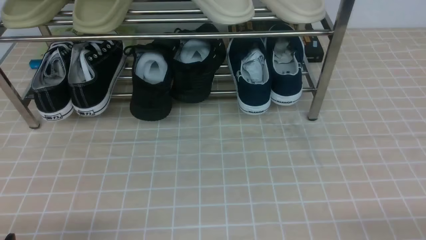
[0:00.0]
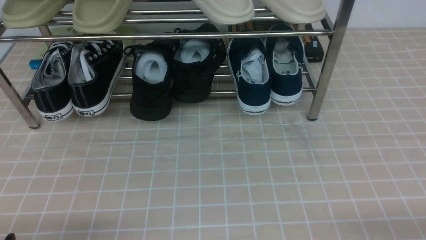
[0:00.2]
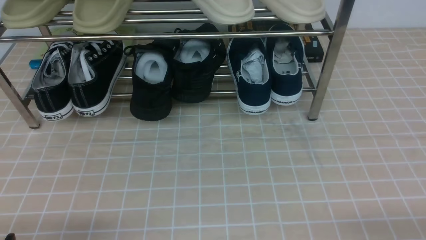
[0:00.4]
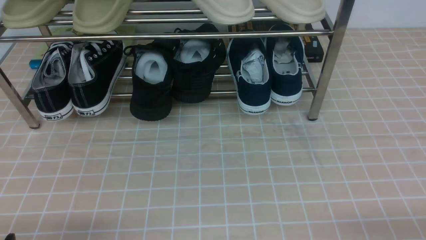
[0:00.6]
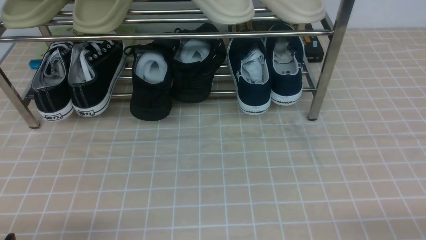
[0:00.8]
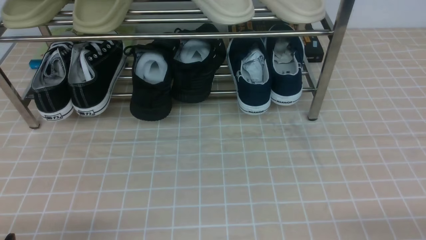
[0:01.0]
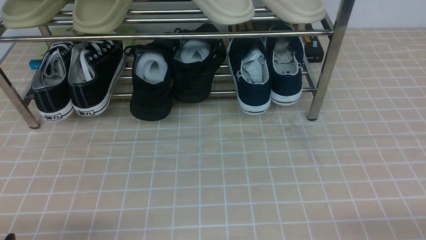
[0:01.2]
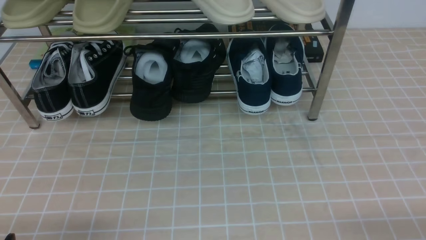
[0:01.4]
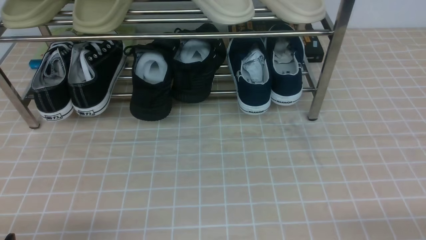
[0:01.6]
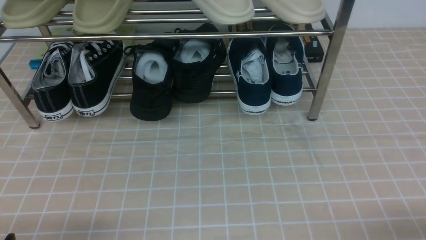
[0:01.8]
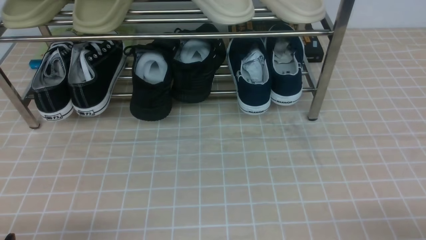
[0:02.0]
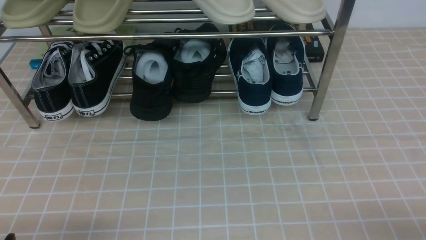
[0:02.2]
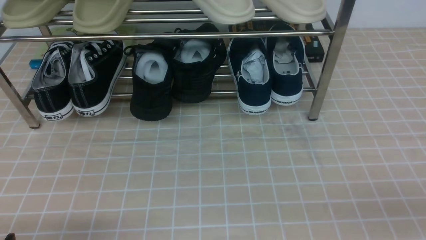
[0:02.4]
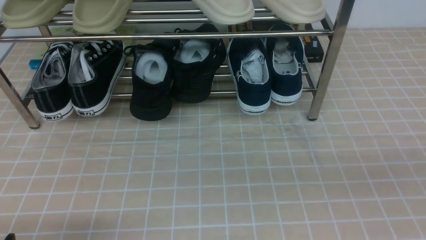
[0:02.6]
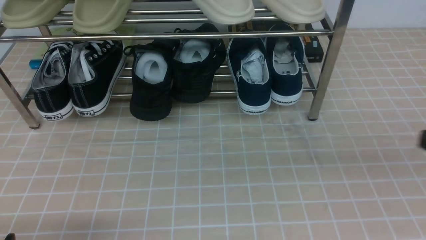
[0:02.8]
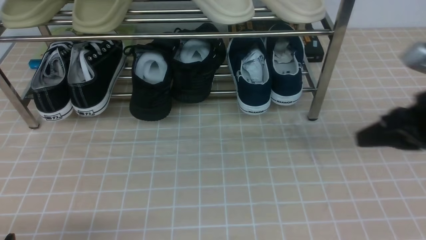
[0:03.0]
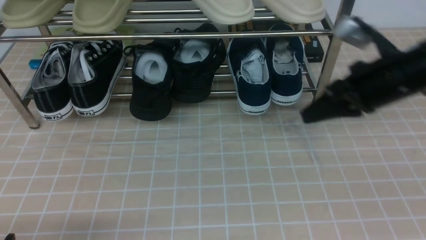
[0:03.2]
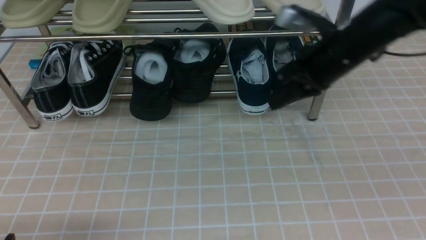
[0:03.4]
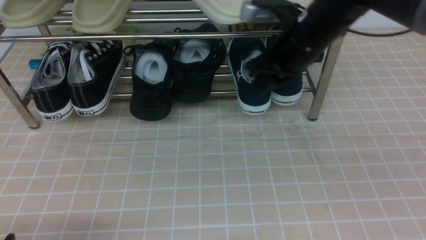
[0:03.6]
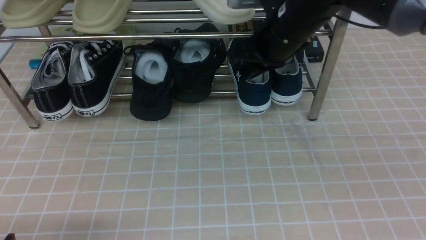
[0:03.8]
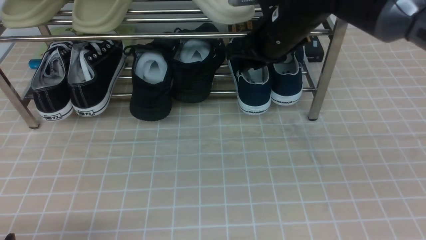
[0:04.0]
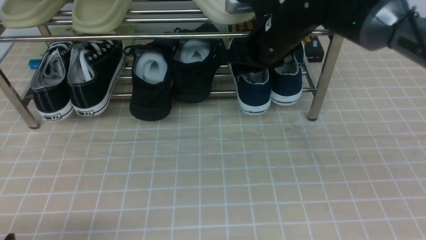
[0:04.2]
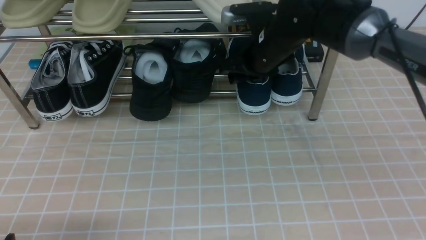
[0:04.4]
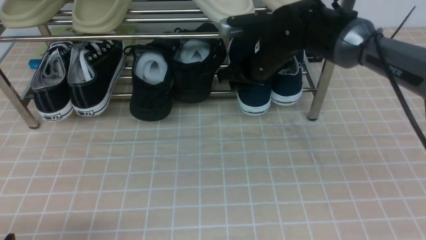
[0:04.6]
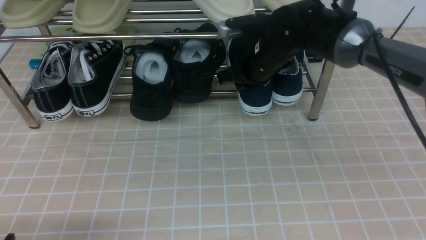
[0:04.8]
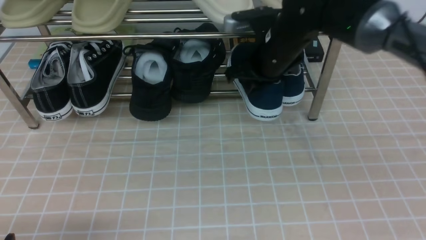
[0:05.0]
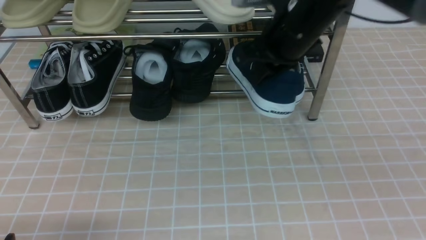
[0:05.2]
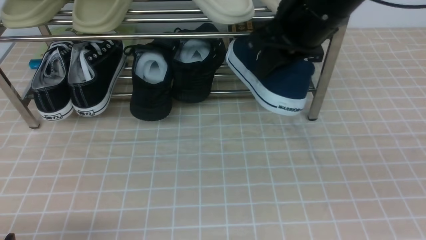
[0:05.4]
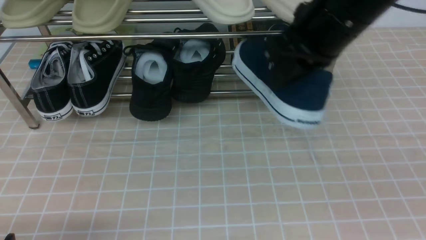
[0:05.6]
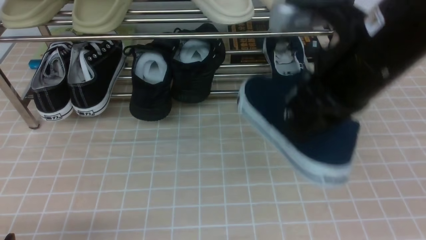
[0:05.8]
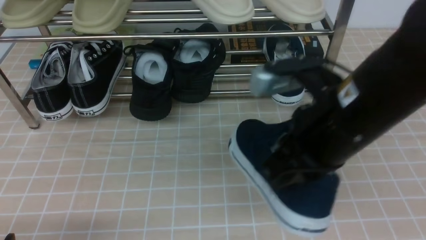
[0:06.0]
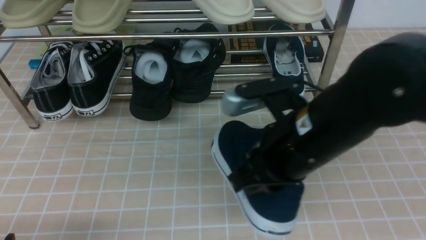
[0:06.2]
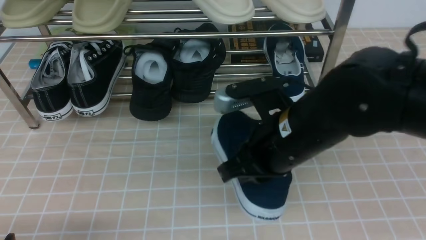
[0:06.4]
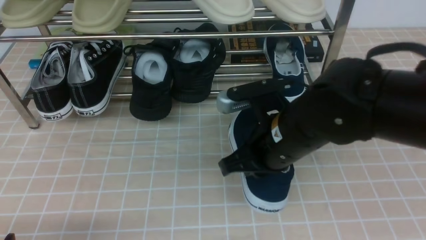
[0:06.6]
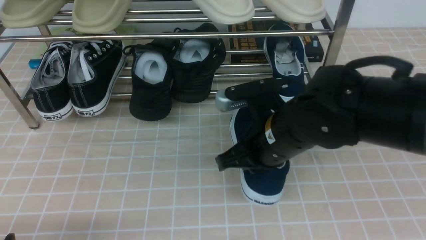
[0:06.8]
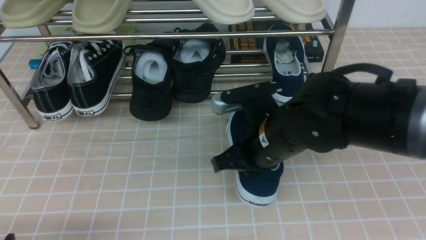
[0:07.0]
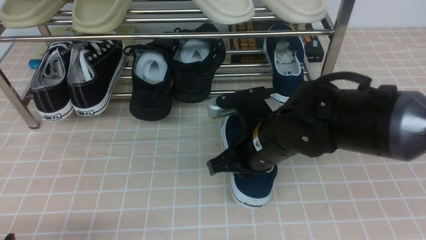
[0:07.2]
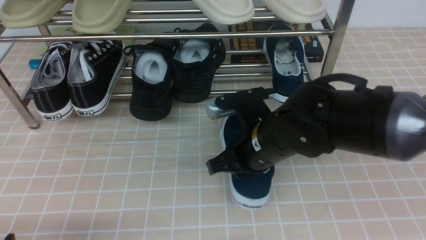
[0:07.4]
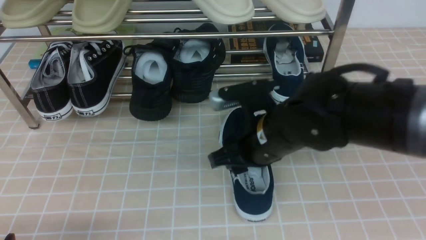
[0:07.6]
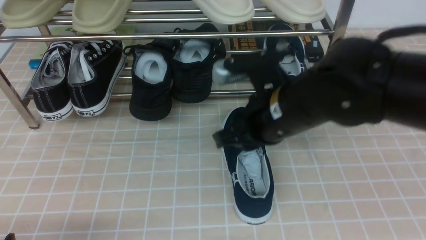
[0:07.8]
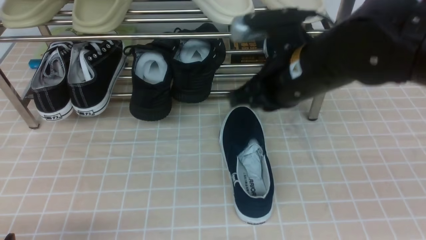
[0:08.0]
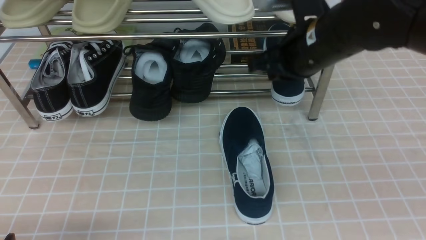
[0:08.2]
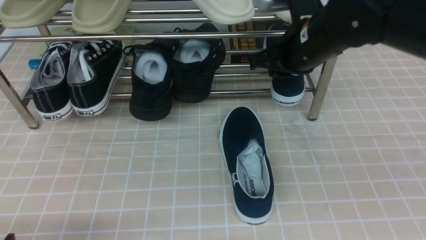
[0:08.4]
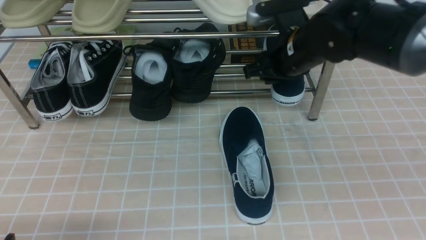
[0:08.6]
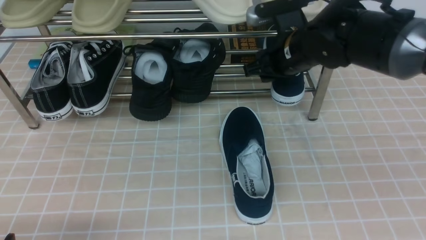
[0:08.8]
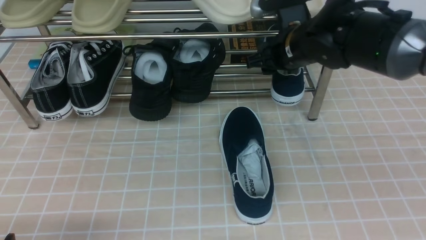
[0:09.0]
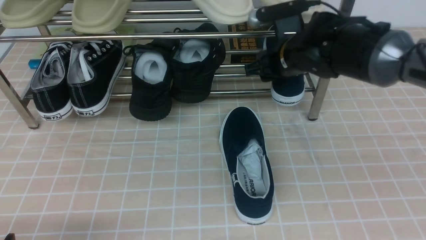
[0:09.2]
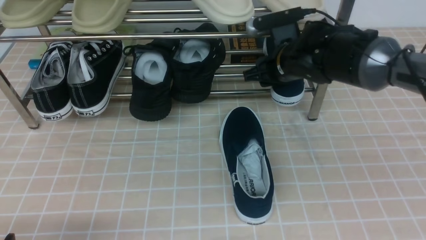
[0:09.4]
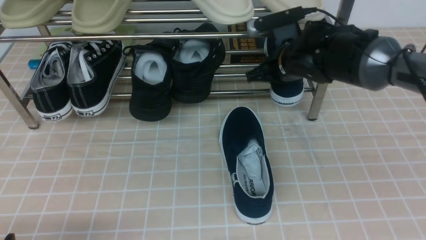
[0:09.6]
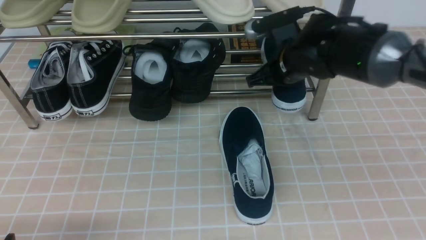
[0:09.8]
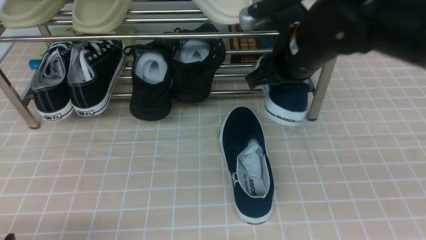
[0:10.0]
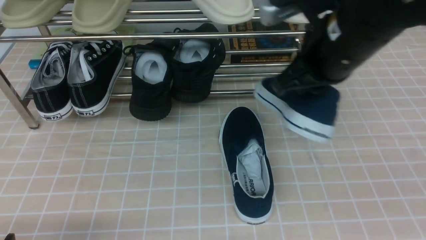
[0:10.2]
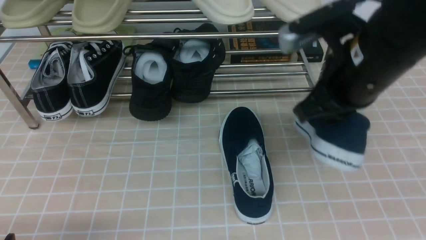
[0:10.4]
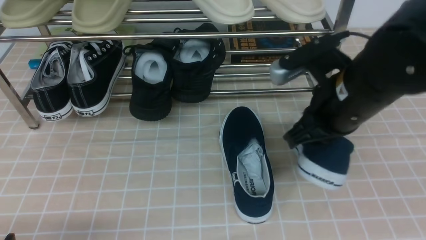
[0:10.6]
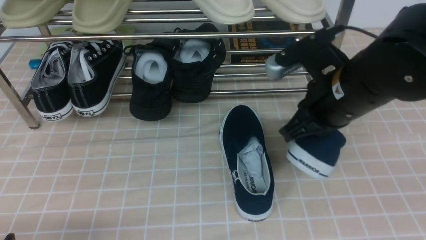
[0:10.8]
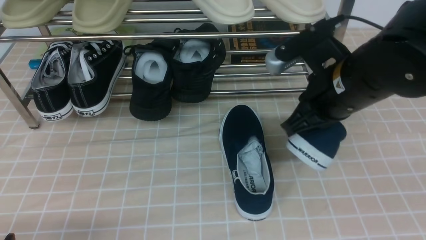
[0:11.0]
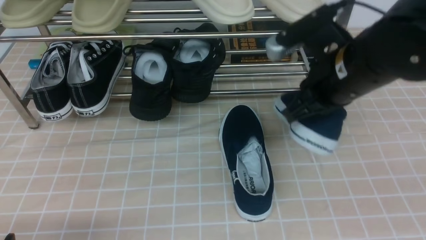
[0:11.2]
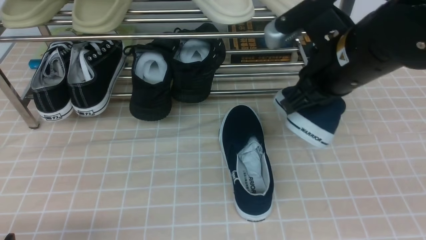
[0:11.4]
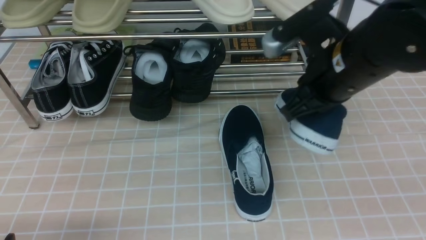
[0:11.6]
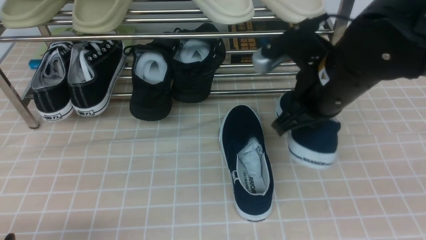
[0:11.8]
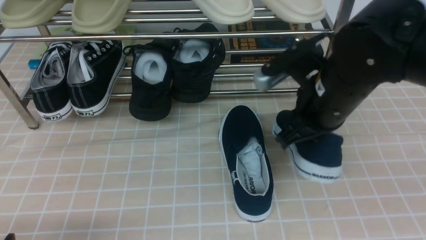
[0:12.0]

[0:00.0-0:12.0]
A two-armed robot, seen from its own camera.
Step, 0:00.0 to 0:04.6: use the right arm to clamp a shoe on the right side of the shoe rack.
Step, 0:04.8 to 0:07.6: use the right arm to take out the clamped shoe from the shoe rack and put it down.
Step, 0:08.0 to 0:09.4: use the right arm to clamp a shoe on the right side of the shoe rack.
0:01.6 to 0:03.0: The right gripper moves forward and upward, some 25 cm, and closes.
0:03.0 to 0:04.4: The right gripper is displaced forward and to the left by about 25 cm, and opens.
0:04.4 to 0:06.0: The right gripper moves backward, some 20 cm, and closes its fingers.
0:06.0 to 0:07.6: The right gripper moves downward, roughly 10 cm, and opens up.
0:07.6 to 0:09.0: The right gripper is displaced forward by roughly 15 cm, and closes, then reopens.
0:09.0 to 0:10.4: The right gripper shifts approximately 15 cm backward and upward, and closes.
0:10.4 to 0:12.0: The grippers make only small movements.

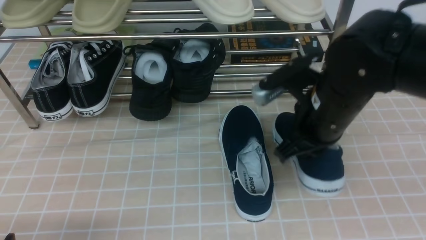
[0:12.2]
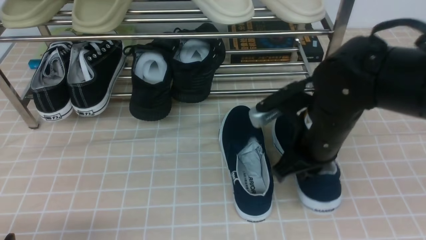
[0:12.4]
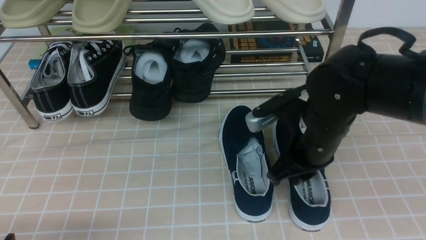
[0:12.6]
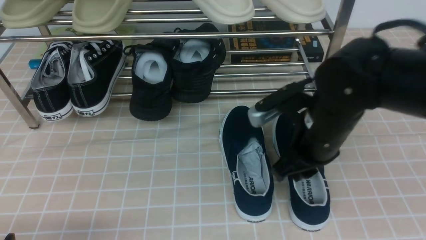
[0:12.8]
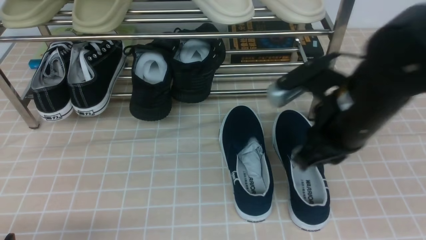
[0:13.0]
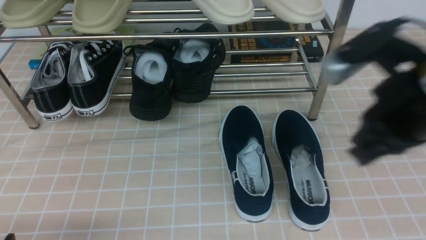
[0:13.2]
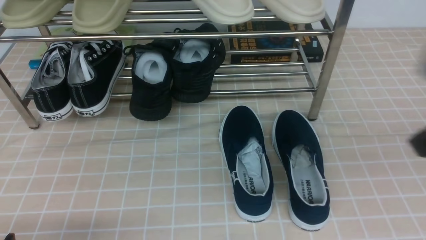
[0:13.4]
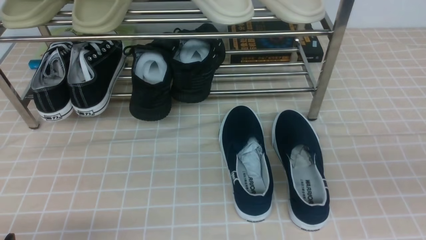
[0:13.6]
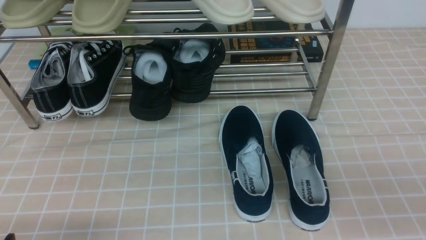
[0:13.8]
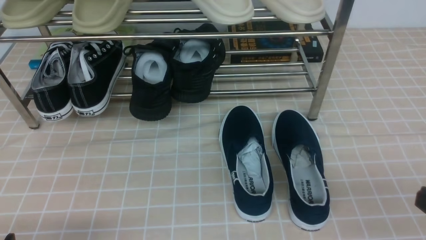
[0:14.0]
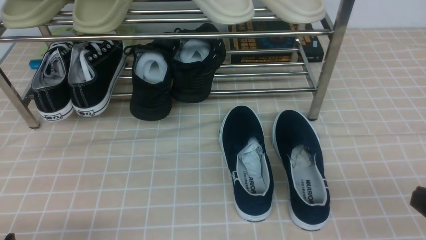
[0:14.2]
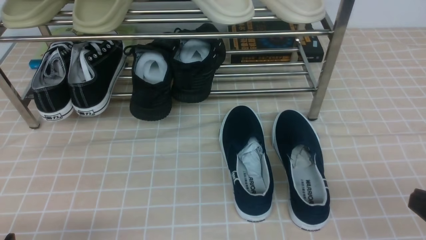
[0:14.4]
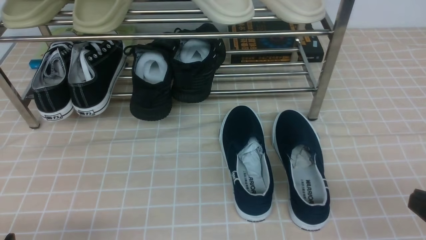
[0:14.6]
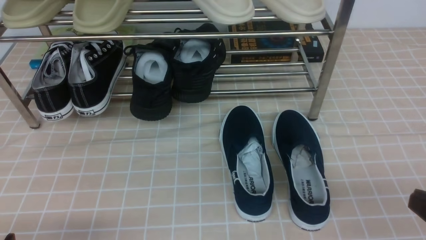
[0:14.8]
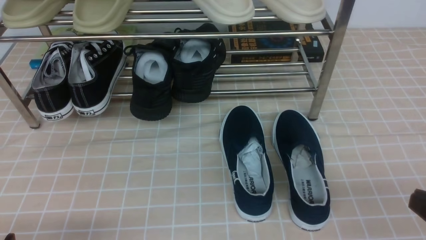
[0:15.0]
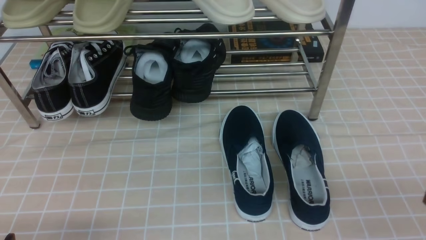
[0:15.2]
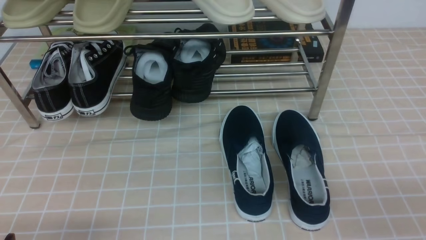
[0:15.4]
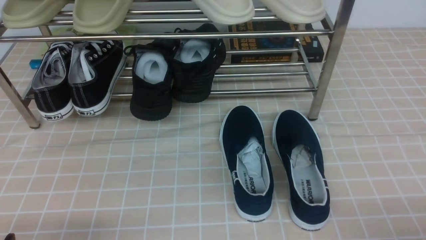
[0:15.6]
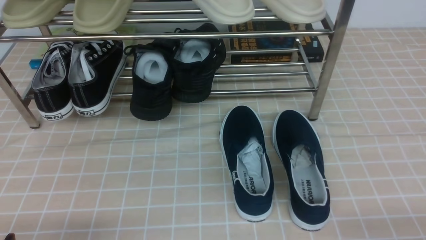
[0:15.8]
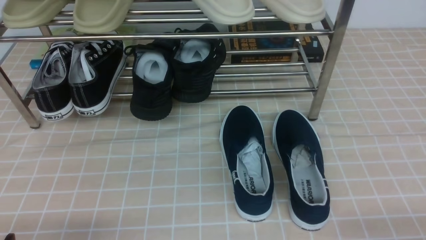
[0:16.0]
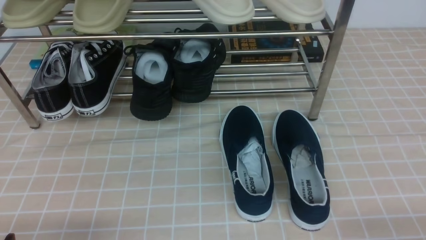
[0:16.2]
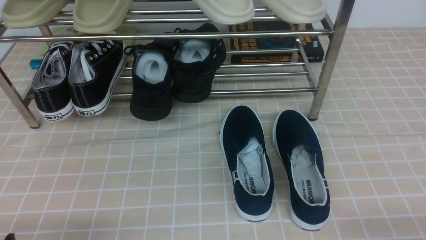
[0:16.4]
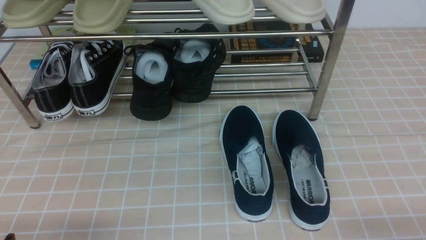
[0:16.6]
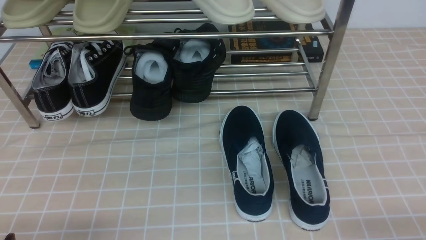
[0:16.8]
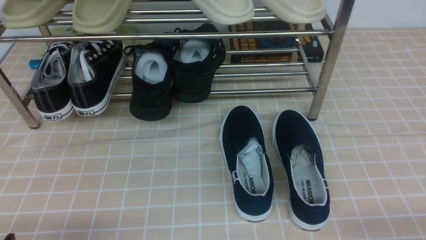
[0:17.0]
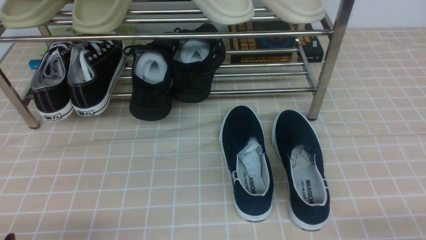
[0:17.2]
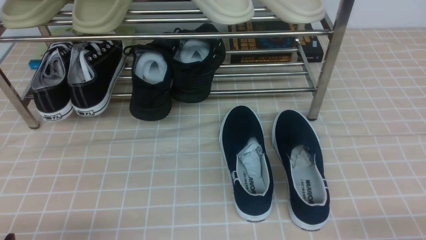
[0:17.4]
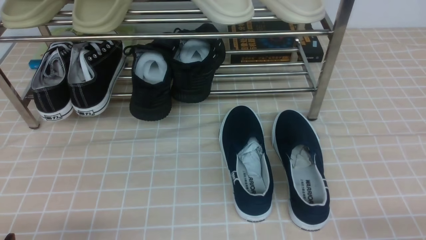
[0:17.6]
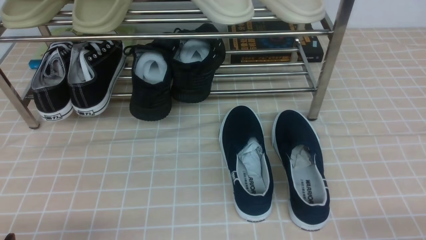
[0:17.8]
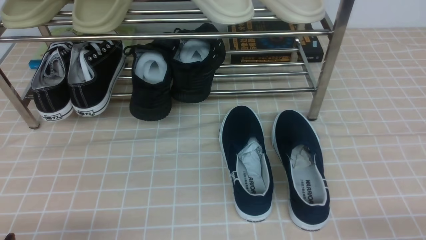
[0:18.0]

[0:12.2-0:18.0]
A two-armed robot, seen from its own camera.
0:12.2 to 0:13.6: The right gripper travels backward, to the right and upward by approximately 25 cm.
0:13.6 to 0:15.0: The right gripper shifts about 10 cm downward.
0:15.0 to 0:16.6: The right gripper moves downward, approximately 10 cm.
0:16.6 to 0:18.0: Both grippers stay put.
